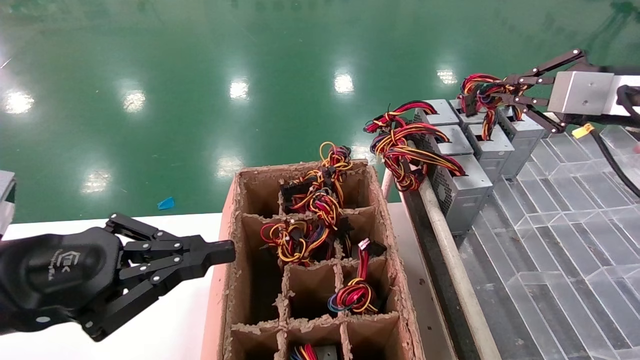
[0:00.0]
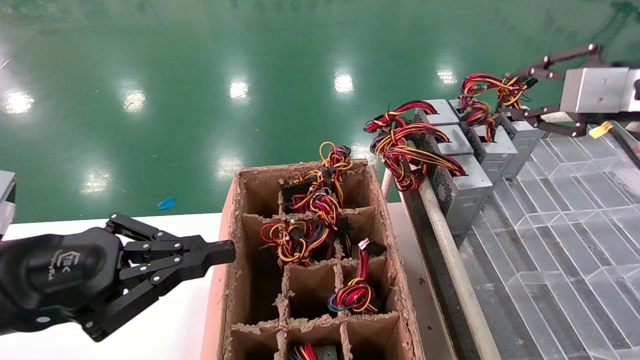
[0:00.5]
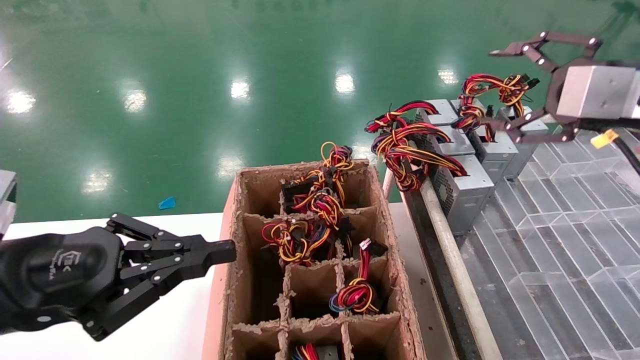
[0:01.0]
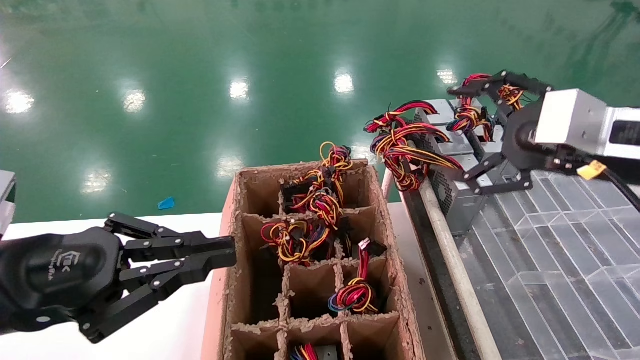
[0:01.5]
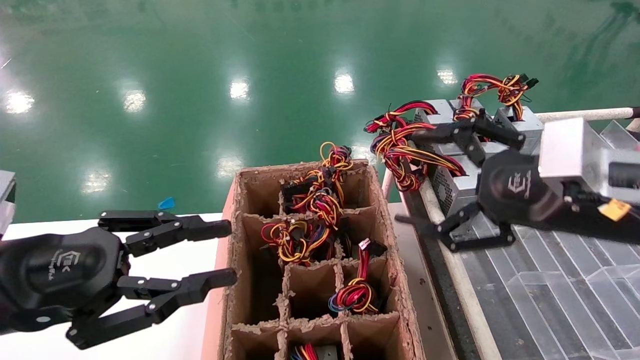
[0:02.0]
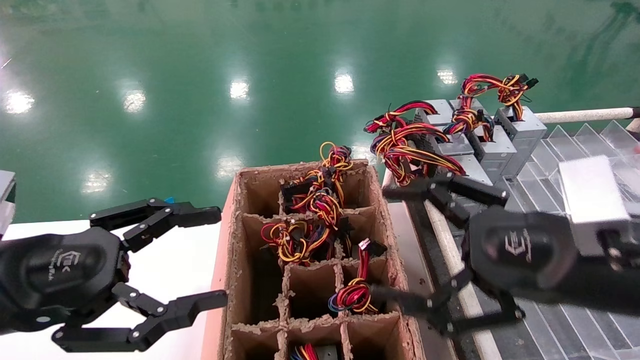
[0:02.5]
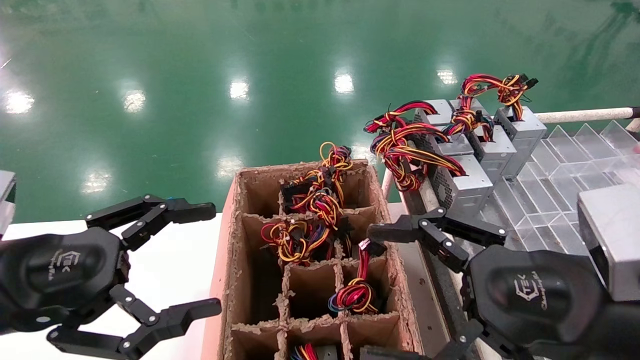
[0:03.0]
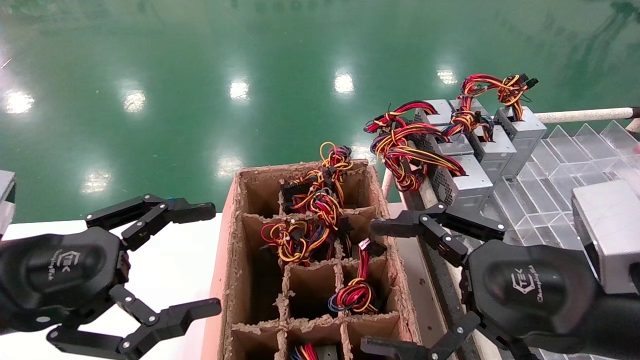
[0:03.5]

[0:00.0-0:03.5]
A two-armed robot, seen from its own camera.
0:00.0 to 0:02.0: The right gripper is displaced to the left, backward and downward by approximately 15 cm, and opens.
0:02.0 to 0:03.5: The right gripper travels backward and downward by roughly 10 cm. Meanwhile the left gripper opens up.
